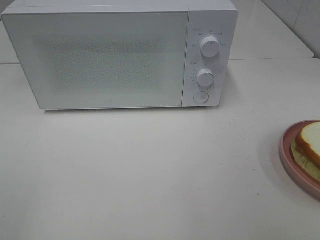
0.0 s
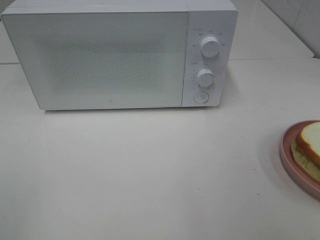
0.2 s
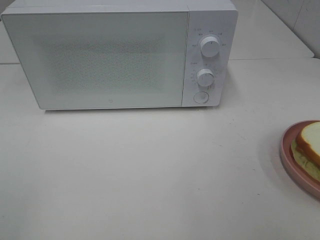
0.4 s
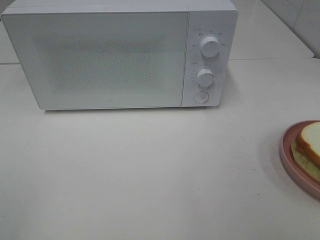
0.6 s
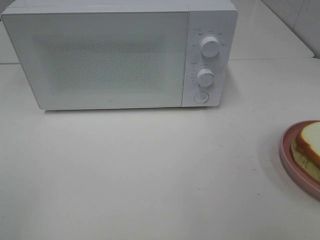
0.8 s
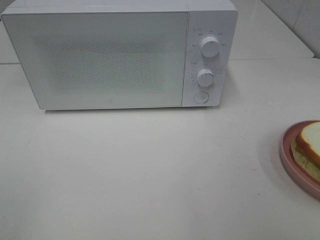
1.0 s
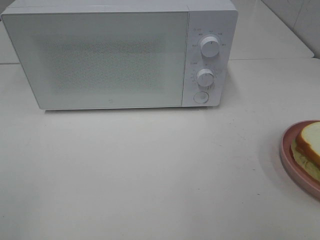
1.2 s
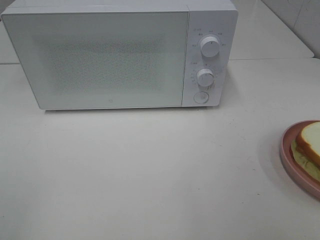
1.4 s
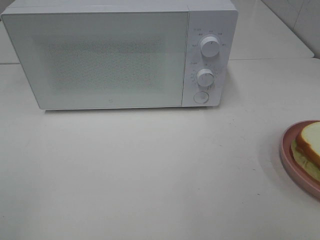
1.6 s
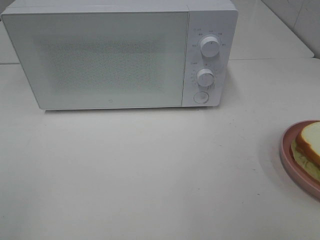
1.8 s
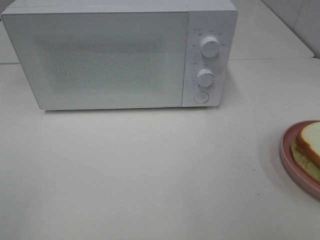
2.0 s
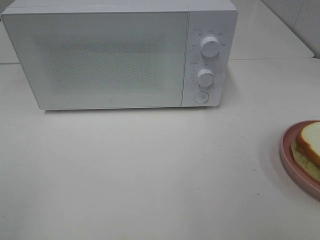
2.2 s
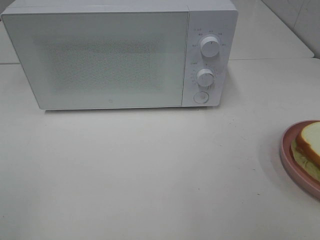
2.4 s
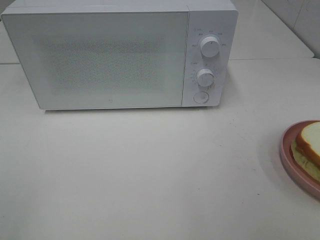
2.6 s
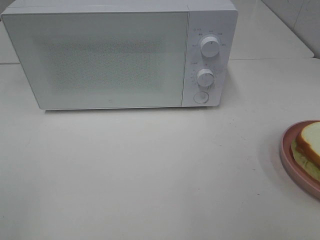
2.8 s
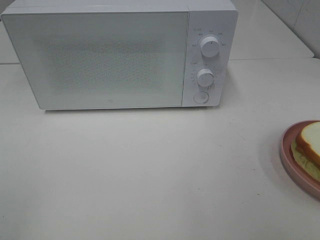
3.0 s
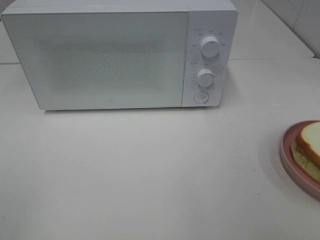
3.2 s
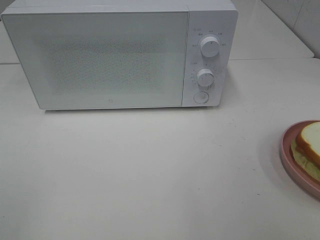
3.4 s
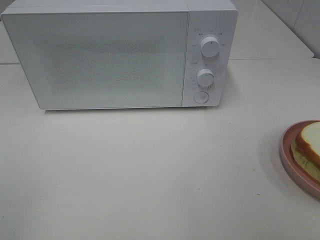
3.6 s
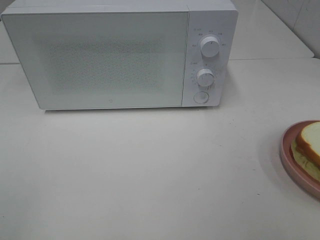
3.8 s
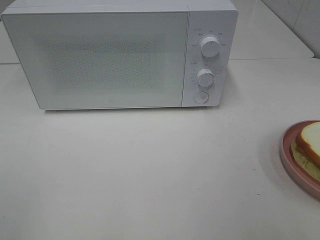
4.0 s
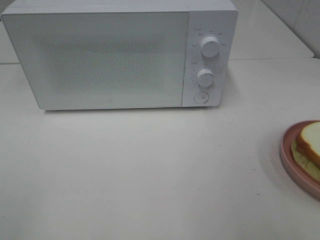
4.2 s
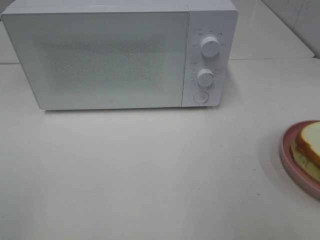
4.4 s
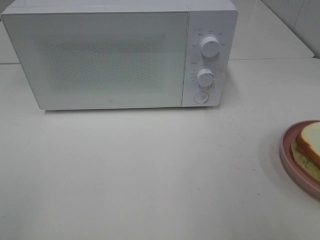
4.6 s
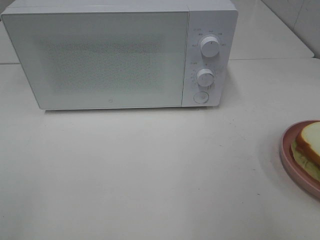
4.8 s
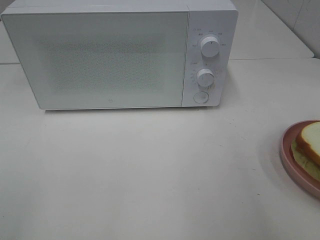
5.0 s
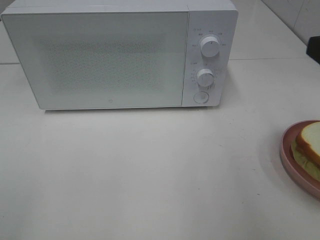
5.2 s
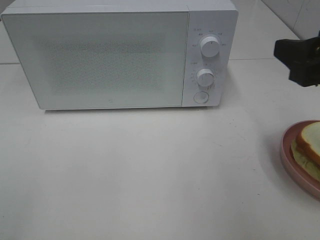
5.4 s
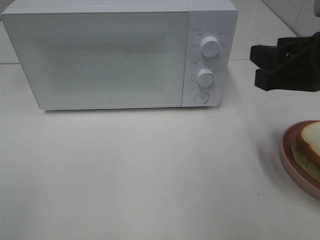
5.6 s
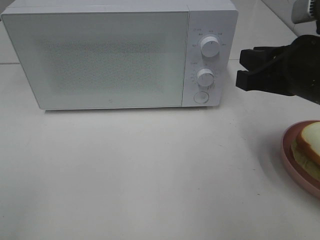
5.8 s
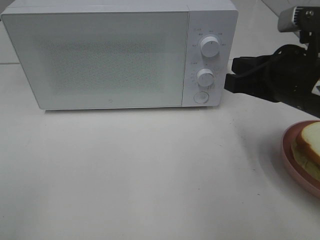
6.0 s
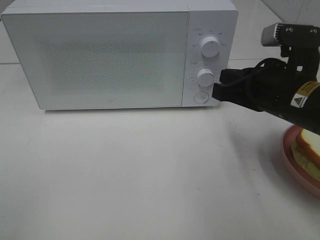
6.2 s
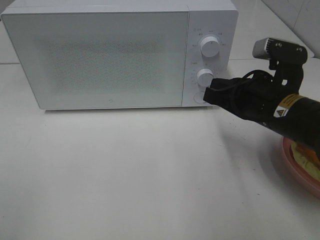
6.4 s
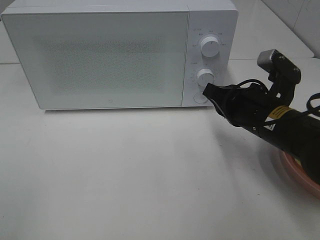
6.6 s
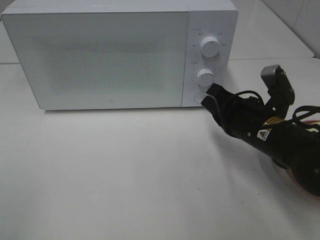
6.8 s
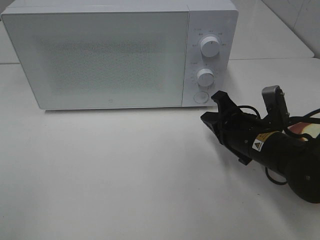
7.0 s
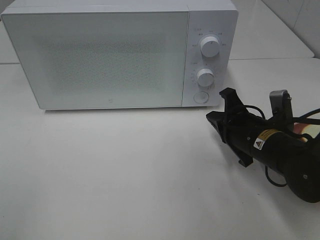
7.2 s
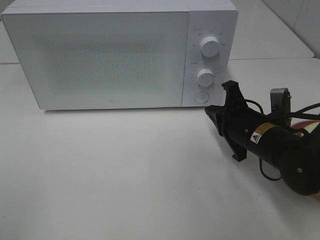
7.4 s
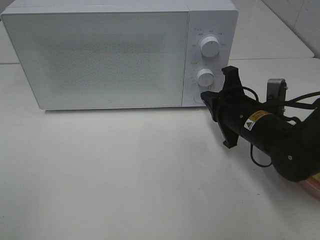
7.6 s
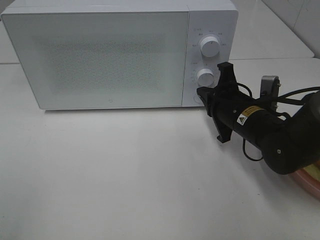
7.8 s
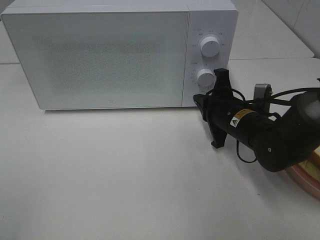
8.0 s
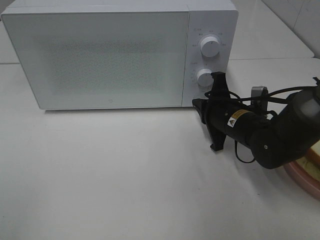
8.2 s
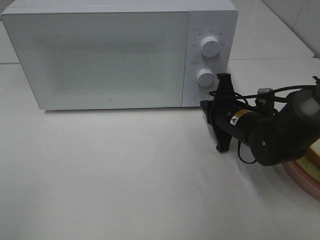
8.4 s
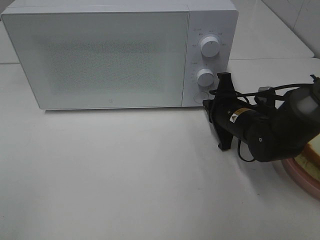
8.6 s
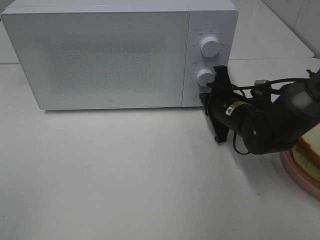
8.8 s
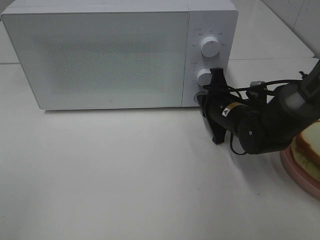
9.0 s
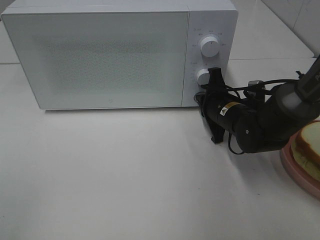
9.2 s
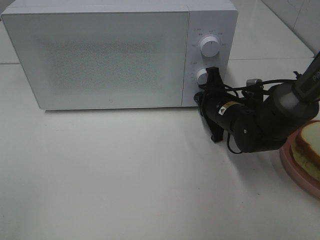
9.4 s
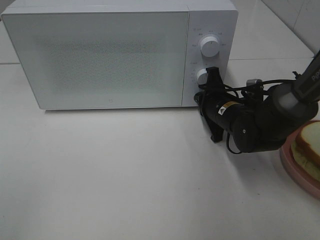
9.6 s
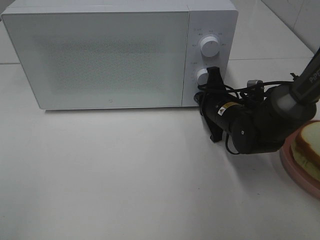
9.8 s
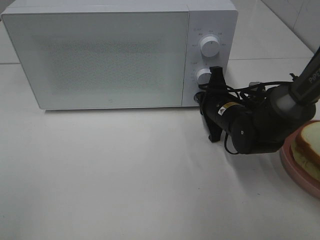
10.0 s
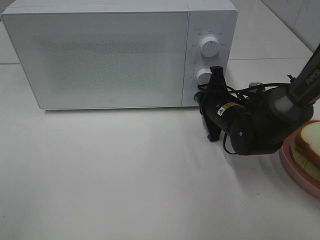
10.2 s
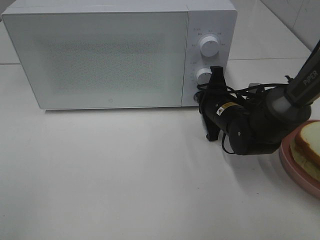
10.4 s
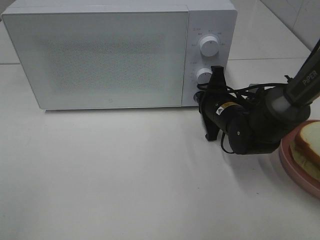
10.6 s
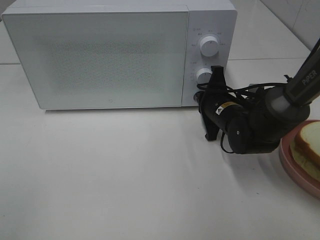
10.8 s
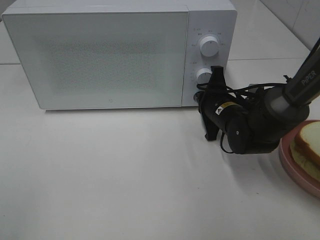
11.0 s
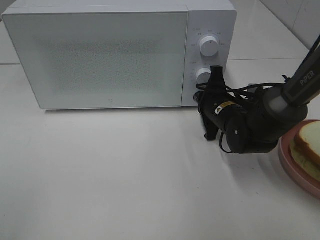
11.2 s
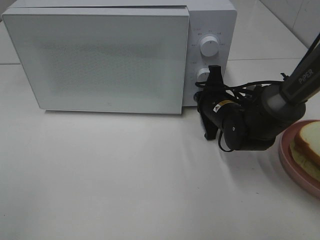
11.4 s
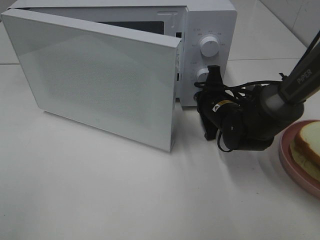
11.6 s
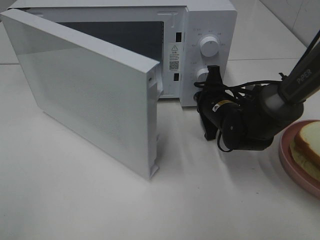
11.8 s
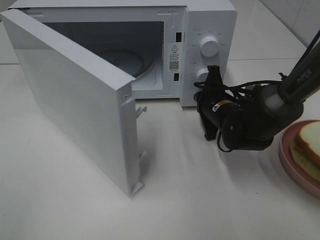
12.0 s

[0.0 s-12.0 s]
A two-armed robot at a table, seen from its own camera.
Task of the whole recording: Heat Sandwich.
0.0 to 3.0 s: Neither gripper changes place.
4.4 to 6.0 s: The right gripper is displaced forward, to the left and downward by about 20 cm, and closes.
6.0 to 7.6 s: The right gripper moves downward and forward, roughly 15 cm.
7.6 to 9.0 s: The right gripper shifts about 5 cm forward.
9.0 to 10.4 s: The grippers move only a little.

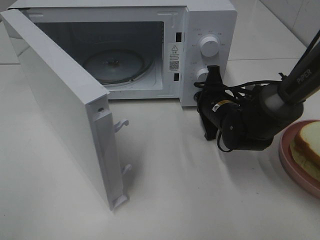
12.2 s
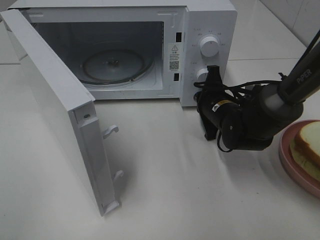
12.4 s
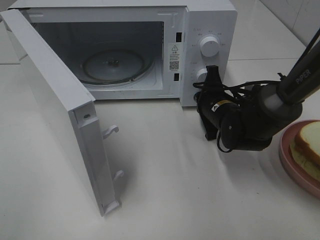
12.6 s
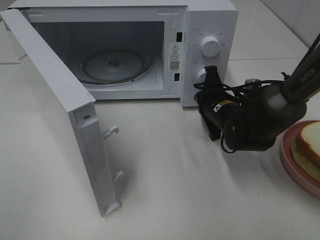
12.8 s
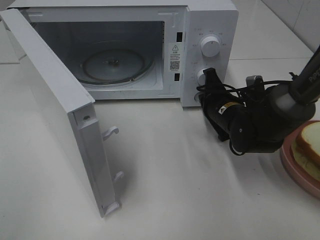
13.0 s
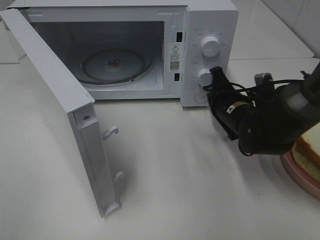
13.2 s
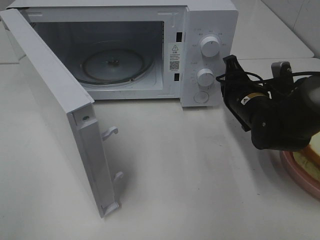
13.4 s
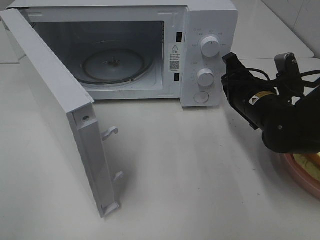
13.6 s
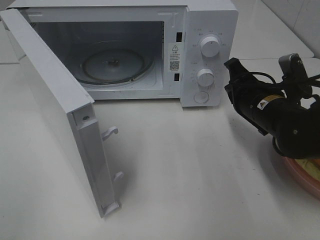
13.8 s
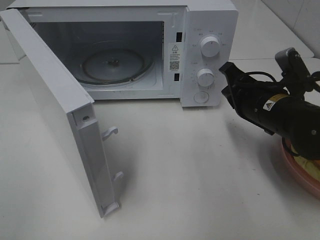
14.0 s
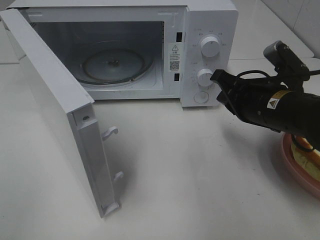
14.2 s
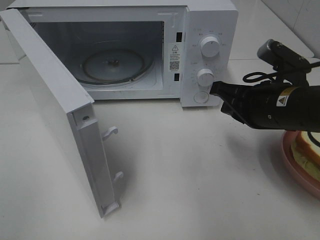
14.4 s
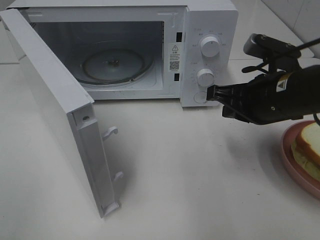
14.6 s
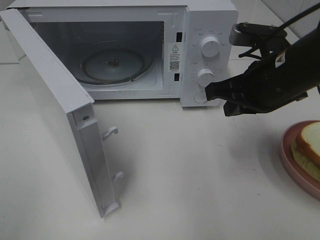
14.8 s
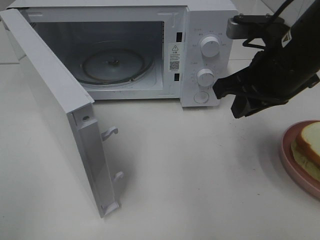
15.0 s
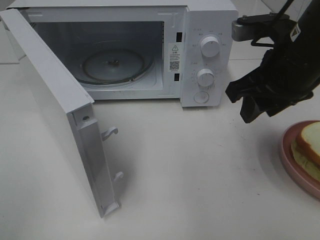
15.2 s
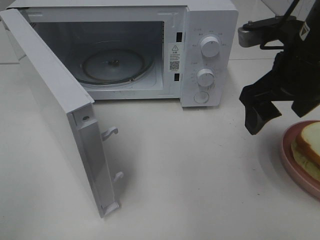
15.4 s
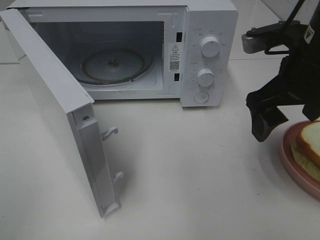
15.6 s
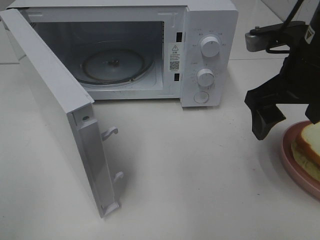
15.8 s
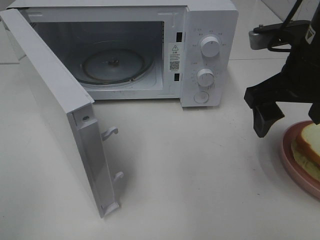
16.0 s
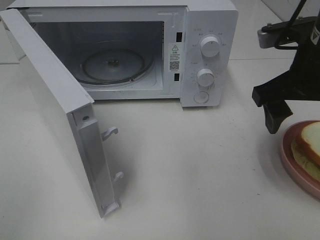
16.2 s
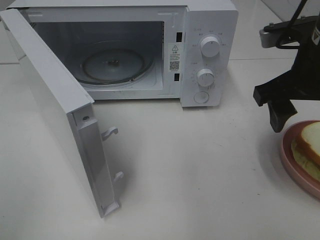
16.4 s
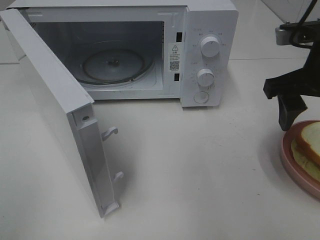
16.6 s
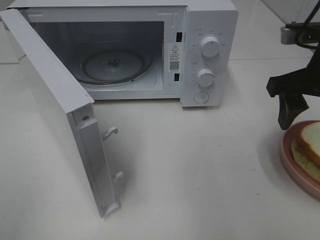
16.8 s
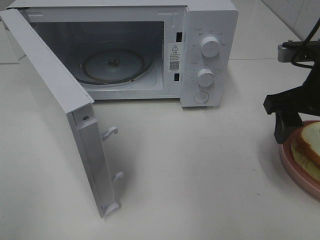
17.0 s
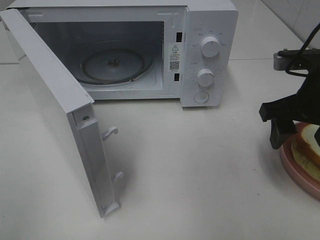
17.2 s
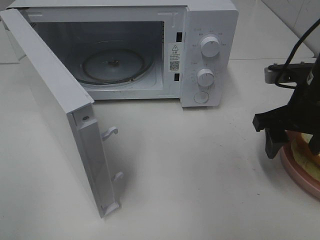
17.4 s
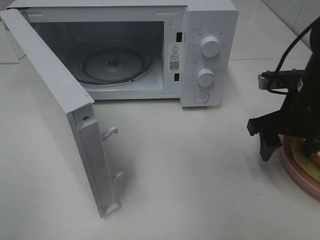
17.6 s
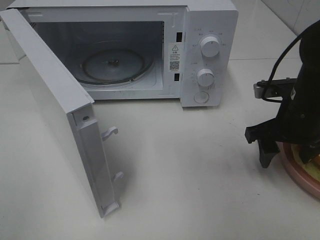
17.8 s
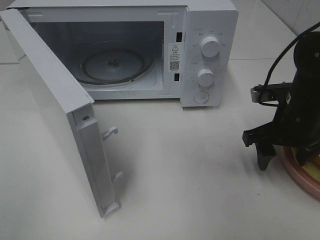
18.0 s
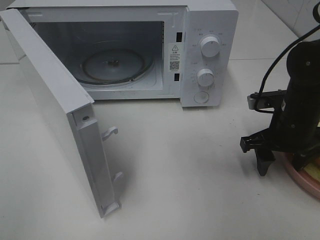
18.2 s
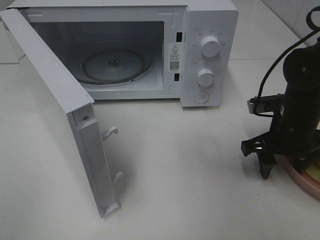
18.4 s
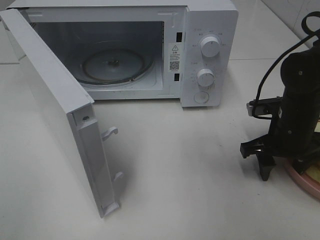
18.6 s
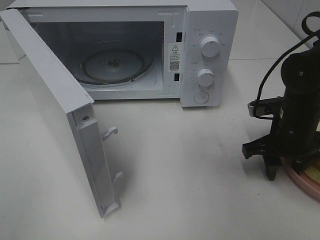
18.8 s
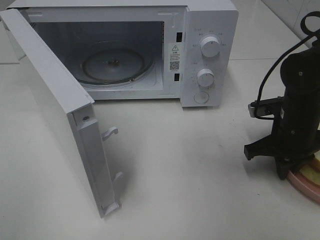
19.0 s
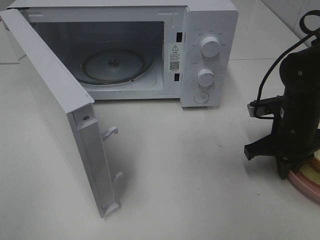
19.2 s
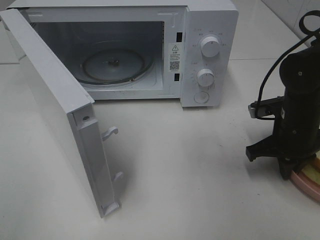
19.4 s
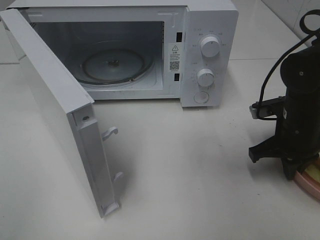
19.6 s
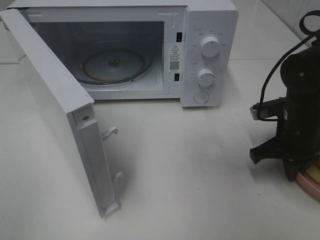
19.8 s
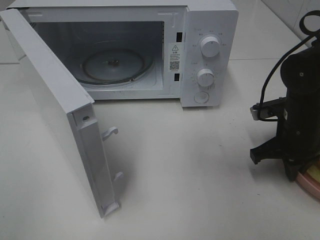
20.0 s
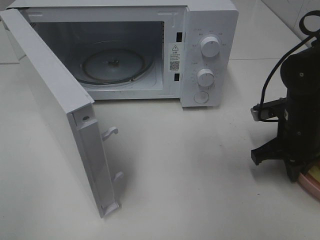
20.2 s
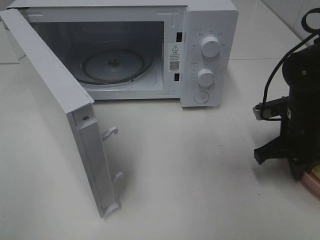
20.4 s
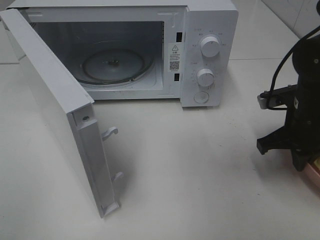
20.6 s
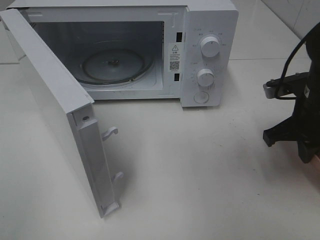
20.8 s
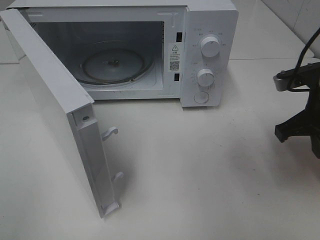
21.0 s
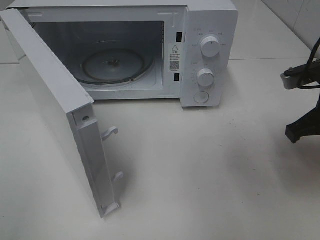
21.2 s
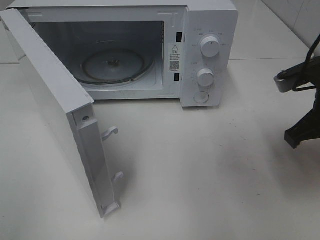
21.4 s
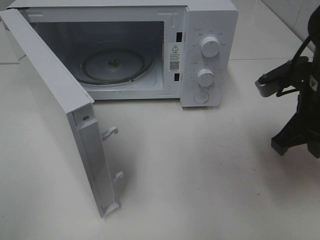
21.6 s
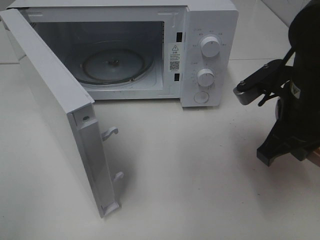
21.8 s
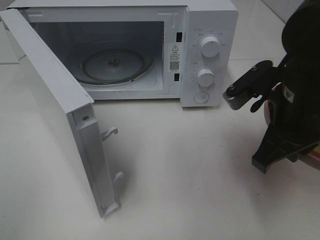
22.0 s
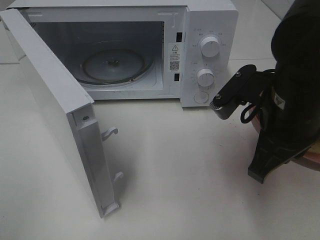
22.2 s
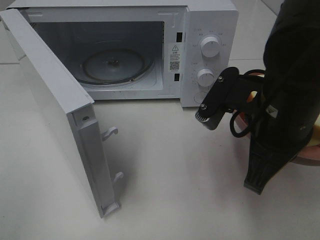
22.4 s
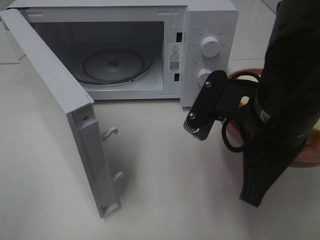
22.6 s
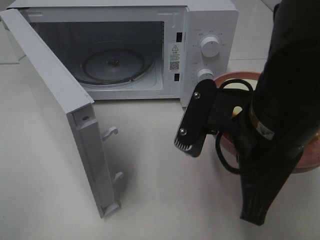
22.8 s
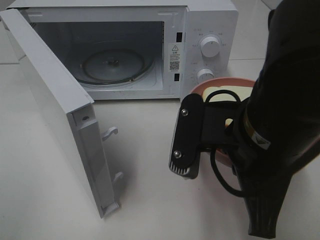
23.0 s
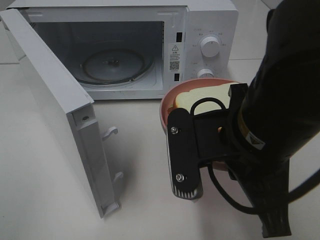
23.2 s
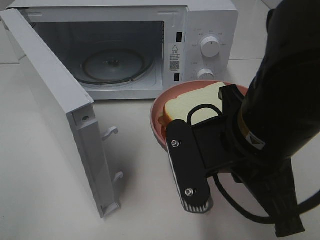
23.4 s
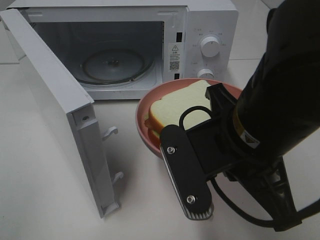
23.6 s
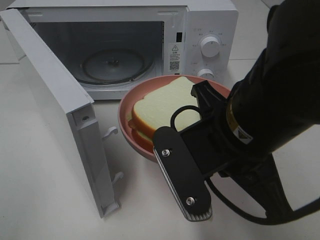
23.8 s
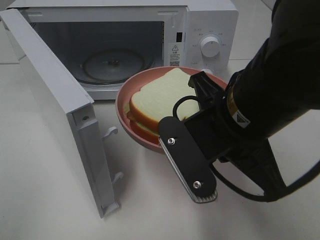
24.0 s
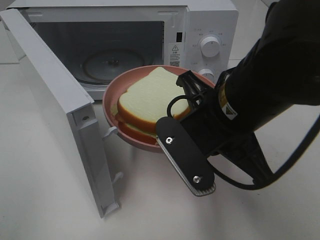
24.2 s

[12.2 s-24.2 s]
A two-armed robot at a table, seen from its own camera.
Task of the whole recording: Heat Sandwich.
Step, 13.4 to 19.4 s: Right hand: grab the plate with the sandwich.
12.2 to 13.8 s: The right gripper is displaced upward and backward by about 10 cm.
13.8 to 15.2 s: The right gripper goes about 10 cm upward, and opens its fingers.
16.6 to 18.2 s: The right gripper shifts about 15 cm downward.
18.2 to 19.8 s: The right gripper closes up.
19.8 to 21.2 s: The right gripper shifts approximately 10 cm upward.
21.2 to 22.6 s: The right gripper heads to the left and backward, covering approximately 15 cm.
